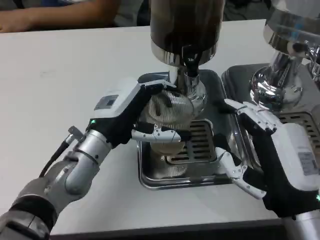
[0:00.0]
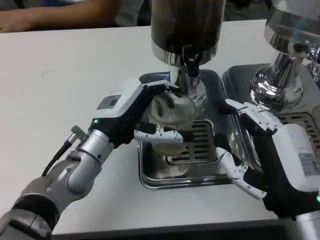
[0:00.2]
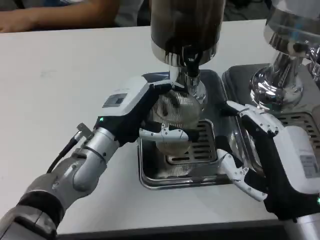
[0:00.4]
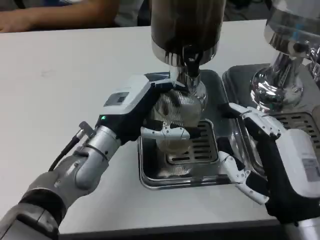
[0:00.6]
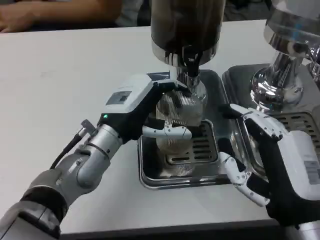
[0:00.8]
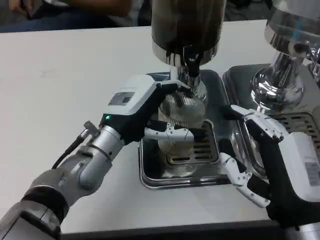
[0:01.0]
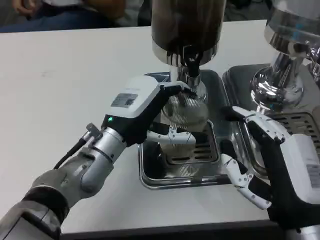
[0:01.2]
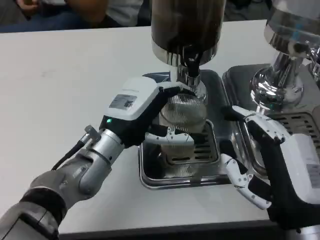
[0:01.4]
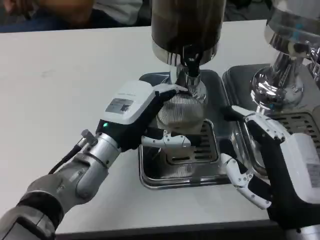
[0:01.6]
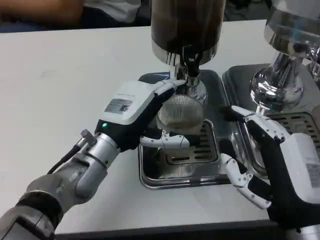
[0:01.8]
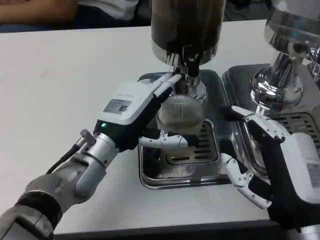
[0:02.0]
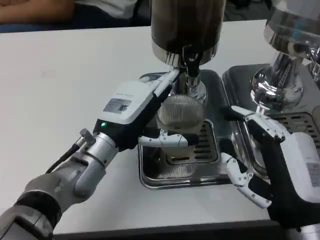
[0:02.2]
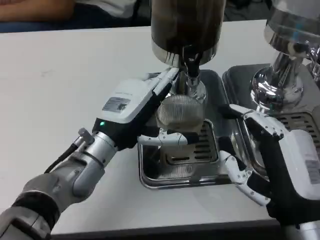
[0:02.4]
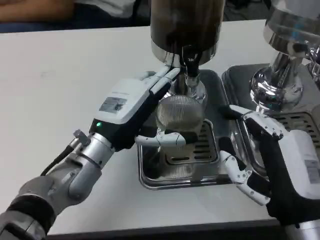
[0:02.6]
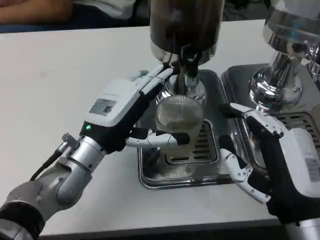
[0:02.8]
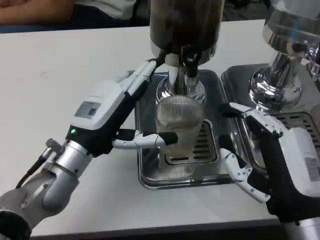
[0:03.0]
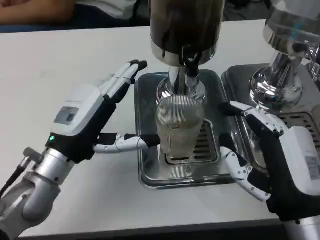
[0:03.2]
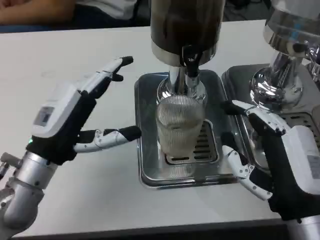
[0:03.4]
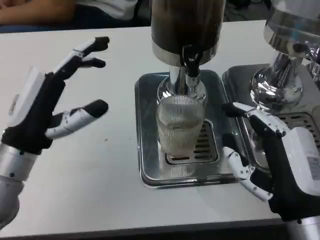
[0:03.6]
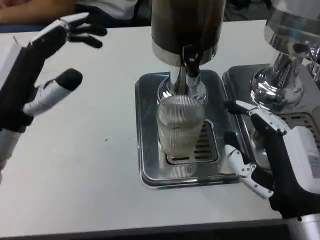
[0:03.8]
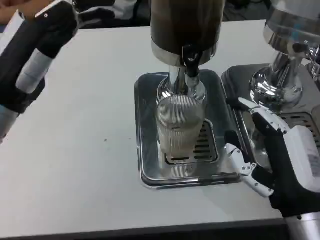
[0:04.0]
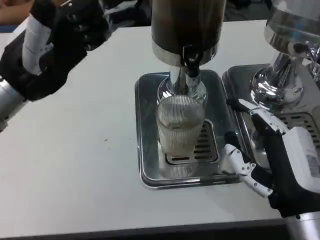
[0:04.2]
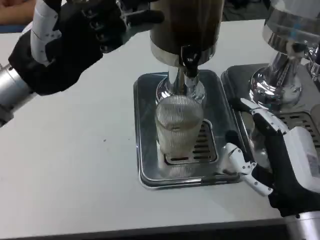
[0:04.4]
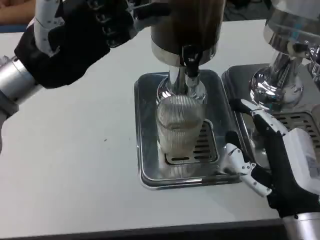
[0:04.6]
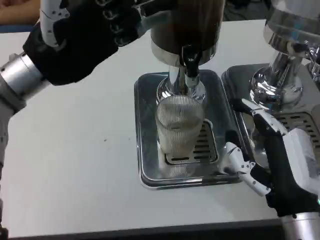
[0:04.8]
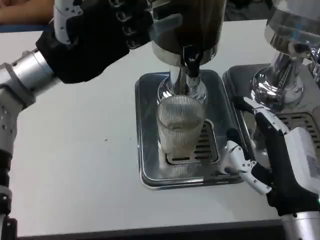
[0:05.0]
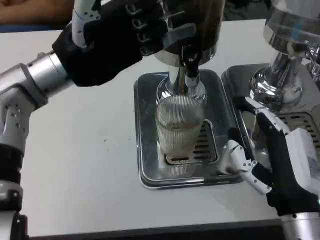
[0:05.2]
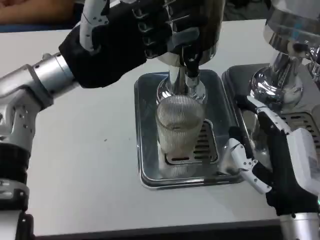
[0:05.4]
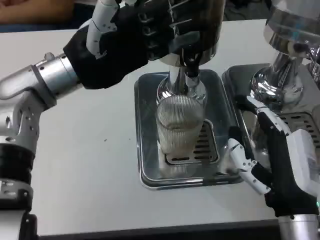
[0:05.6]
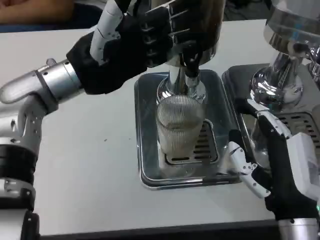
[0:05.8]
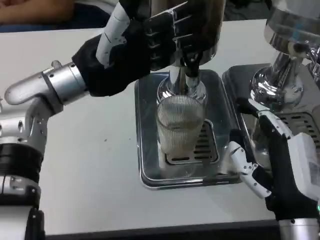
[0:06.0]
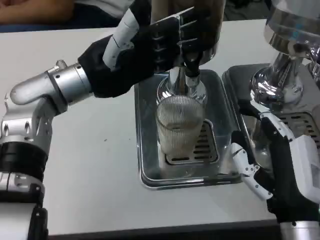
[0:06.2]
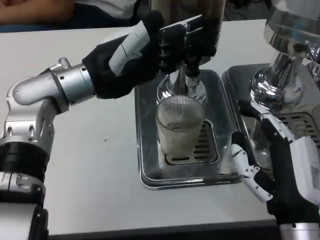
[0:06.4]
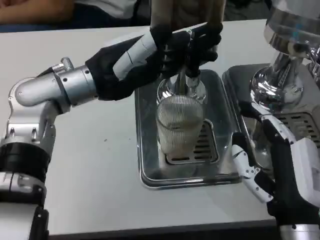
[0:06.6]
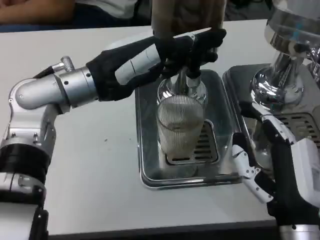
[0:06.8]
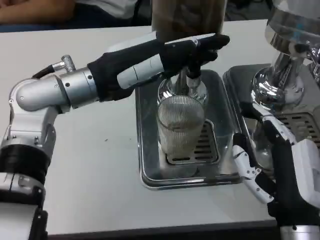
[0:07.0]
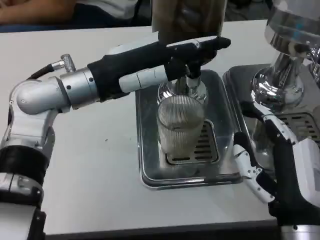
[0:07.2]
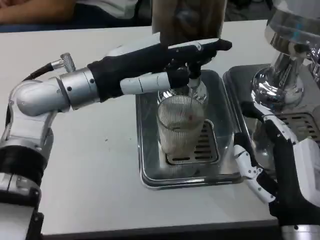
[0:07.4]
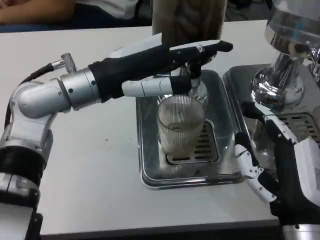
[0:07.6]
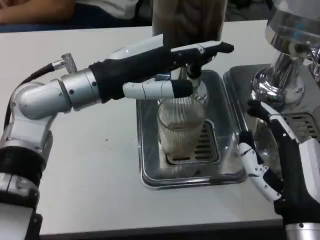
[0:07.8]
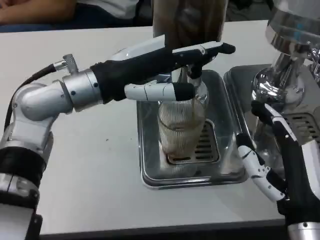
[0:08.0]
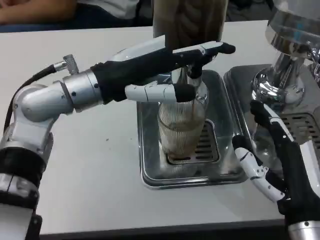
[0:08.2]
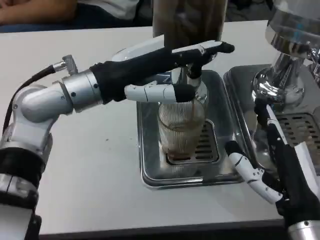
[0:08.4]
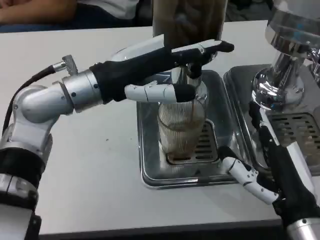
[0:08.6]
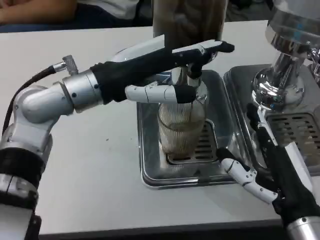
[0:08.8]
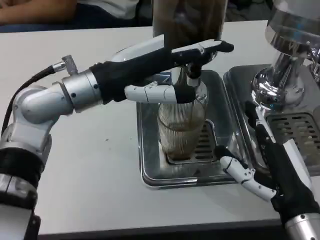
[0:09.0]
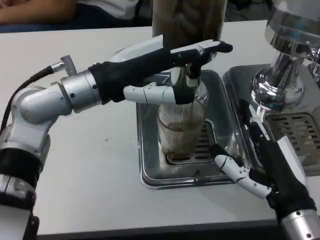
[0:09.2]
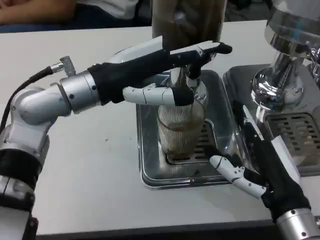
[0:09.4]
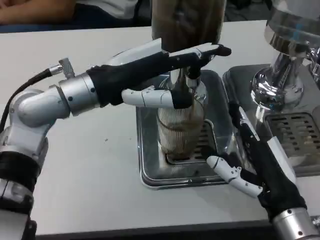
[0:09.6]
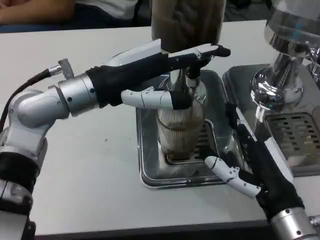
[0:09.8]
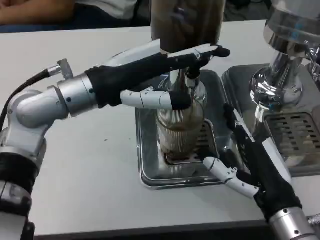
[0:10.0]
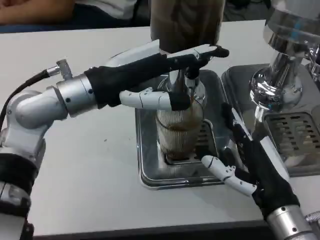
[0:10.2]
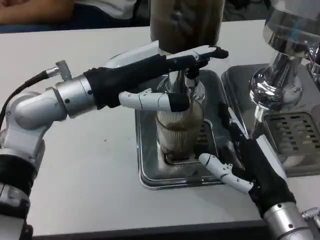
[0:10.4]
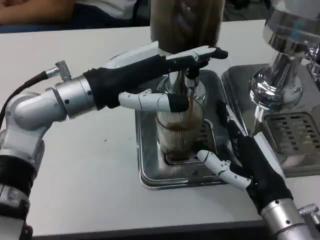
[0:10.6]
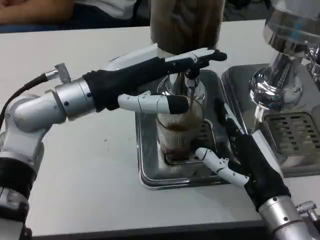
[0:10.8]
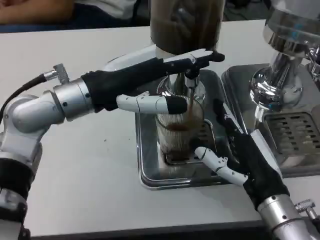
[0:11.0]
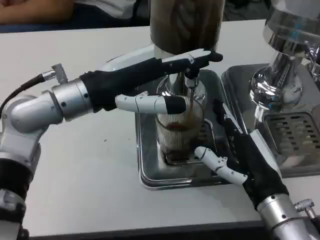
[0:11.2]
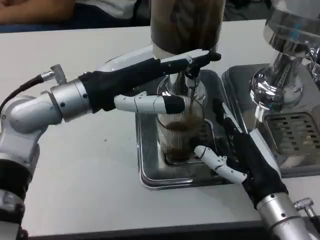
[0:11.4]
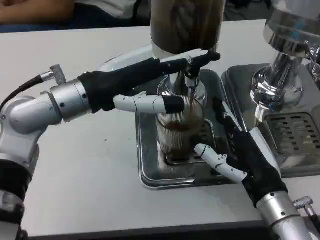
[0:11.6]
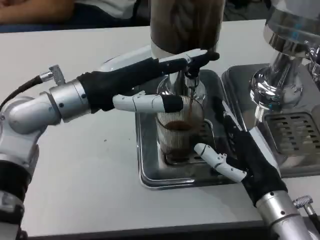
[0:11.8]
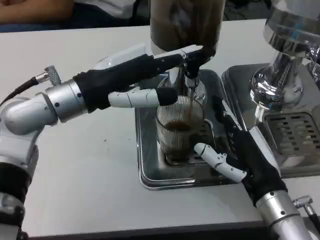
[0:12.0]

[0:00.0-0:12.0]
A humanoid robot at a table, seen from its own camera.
Task of the whole recording: Grasp the cup under the faucet to collect the drink, then remove the cup.
0:03.0 to 0:04.4: The left hand heads upward and to the left, covering about 15 cm.
0:04.4 to 0:06.0: The left hand moves to the right, some 5 cm.
0:10.4 to 0:12.0: The hands stay close to where they were, moving slightly.

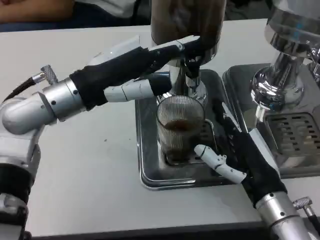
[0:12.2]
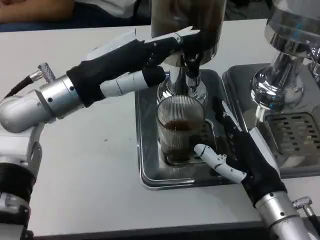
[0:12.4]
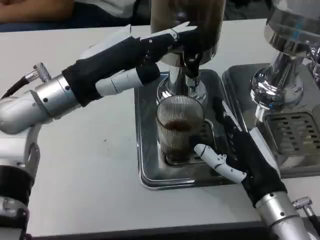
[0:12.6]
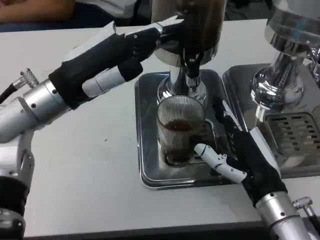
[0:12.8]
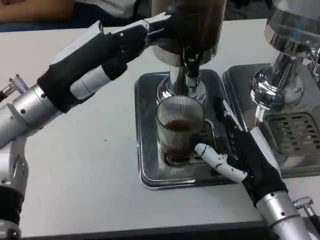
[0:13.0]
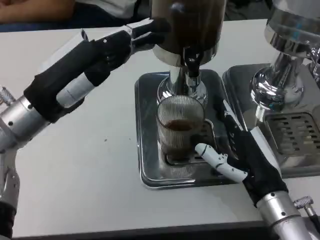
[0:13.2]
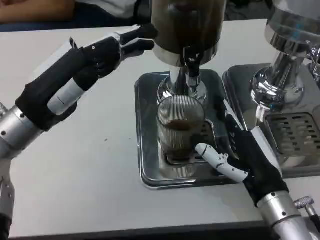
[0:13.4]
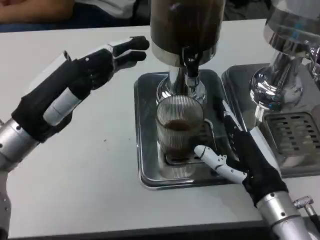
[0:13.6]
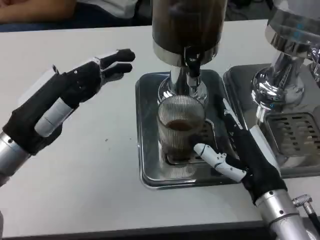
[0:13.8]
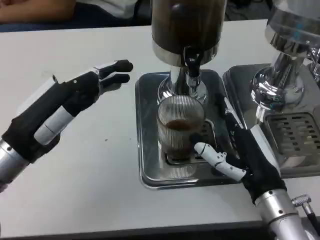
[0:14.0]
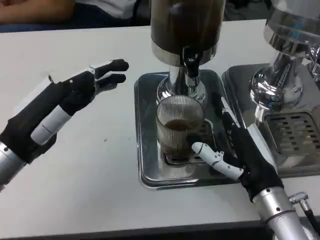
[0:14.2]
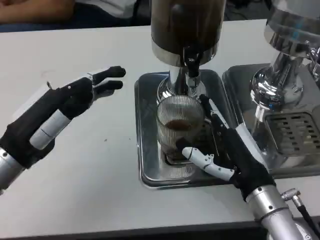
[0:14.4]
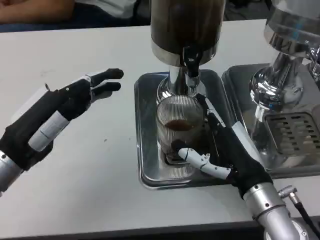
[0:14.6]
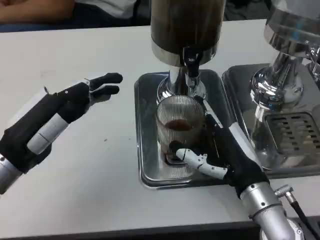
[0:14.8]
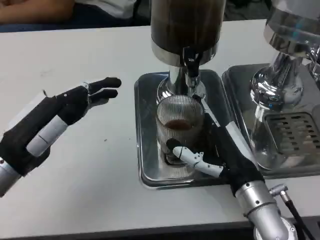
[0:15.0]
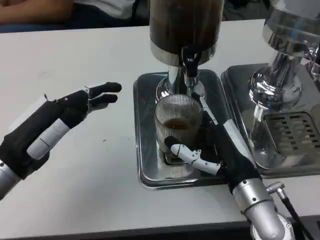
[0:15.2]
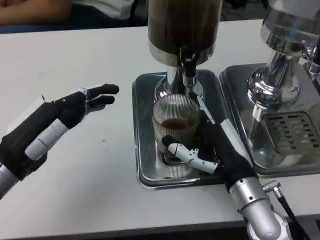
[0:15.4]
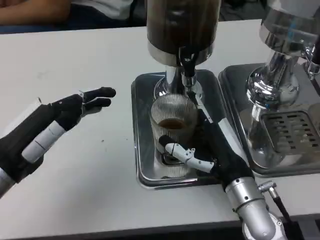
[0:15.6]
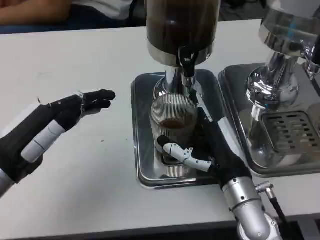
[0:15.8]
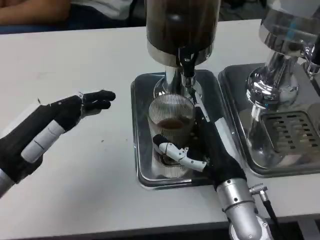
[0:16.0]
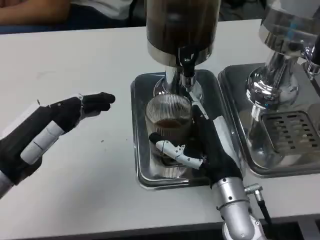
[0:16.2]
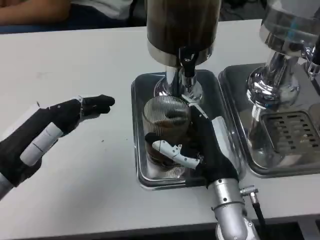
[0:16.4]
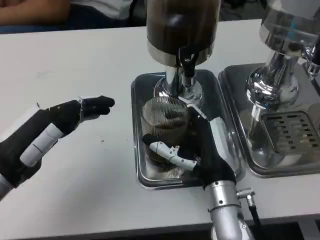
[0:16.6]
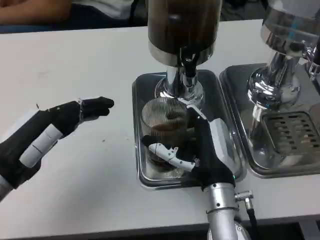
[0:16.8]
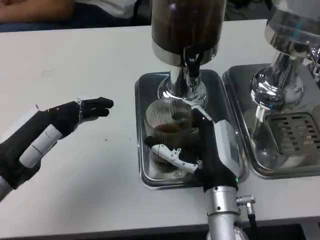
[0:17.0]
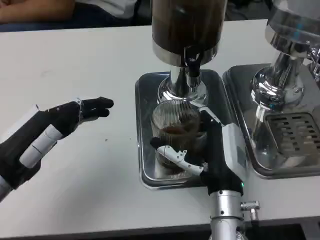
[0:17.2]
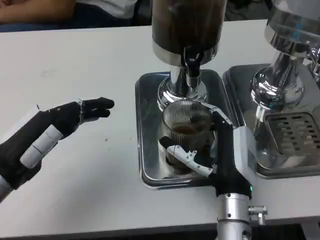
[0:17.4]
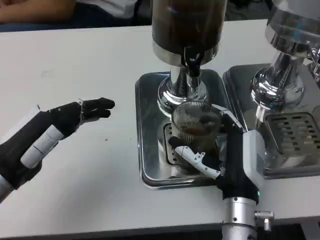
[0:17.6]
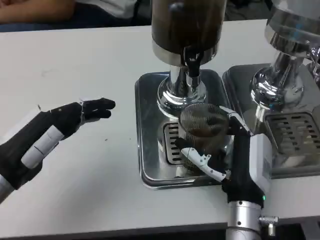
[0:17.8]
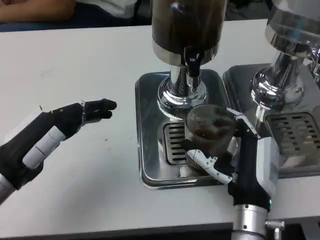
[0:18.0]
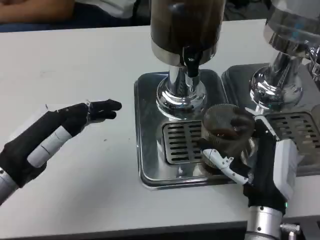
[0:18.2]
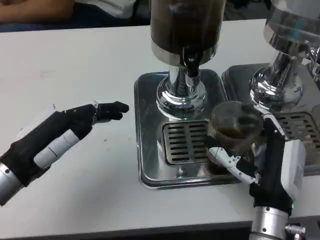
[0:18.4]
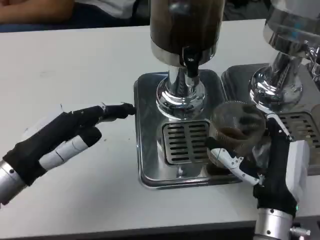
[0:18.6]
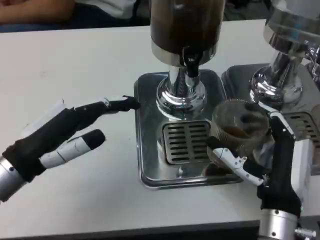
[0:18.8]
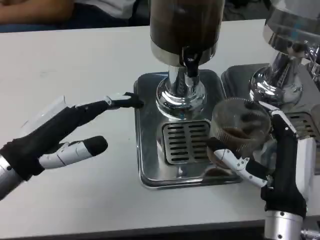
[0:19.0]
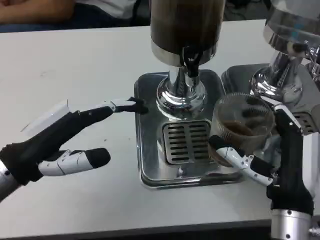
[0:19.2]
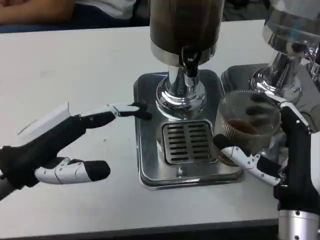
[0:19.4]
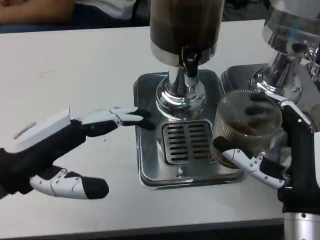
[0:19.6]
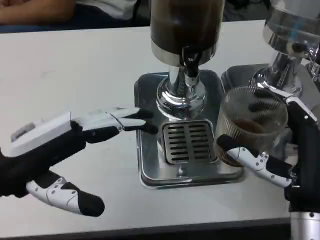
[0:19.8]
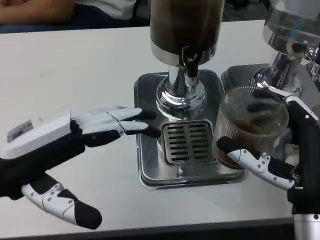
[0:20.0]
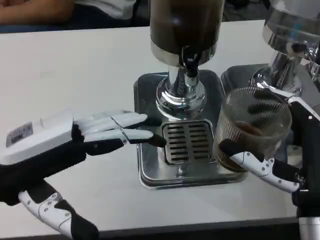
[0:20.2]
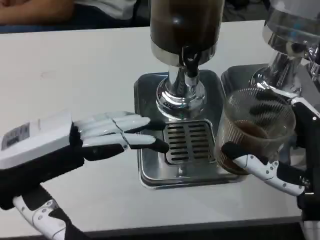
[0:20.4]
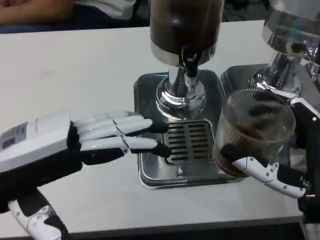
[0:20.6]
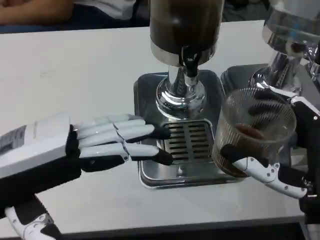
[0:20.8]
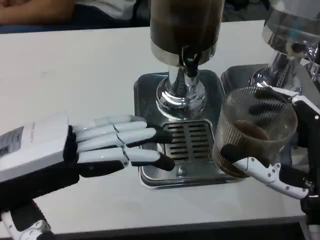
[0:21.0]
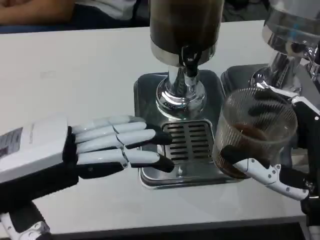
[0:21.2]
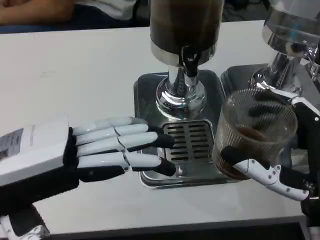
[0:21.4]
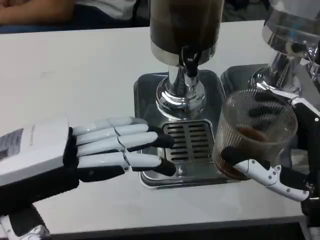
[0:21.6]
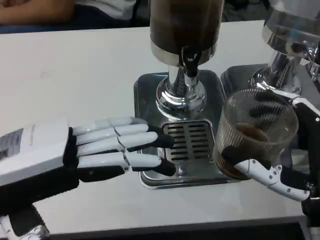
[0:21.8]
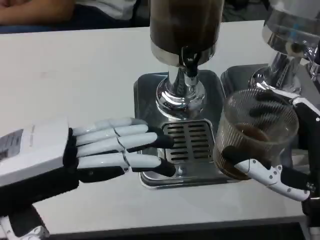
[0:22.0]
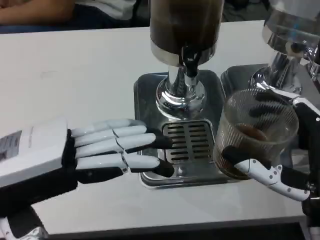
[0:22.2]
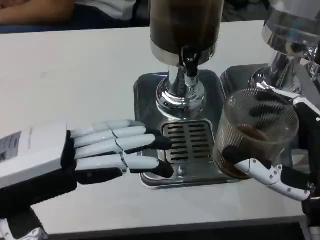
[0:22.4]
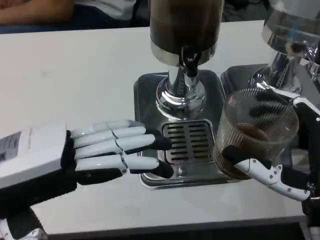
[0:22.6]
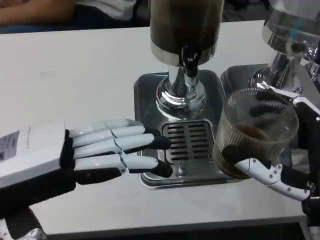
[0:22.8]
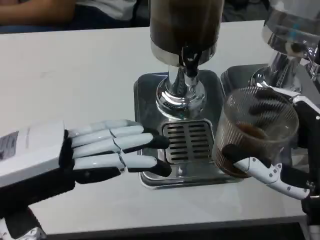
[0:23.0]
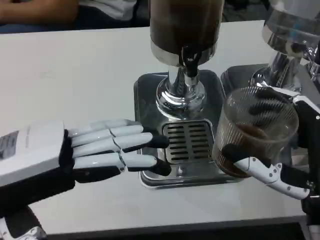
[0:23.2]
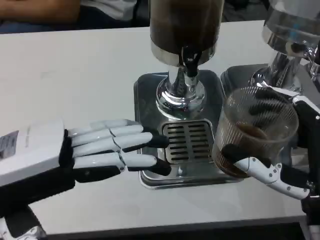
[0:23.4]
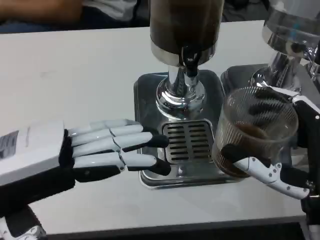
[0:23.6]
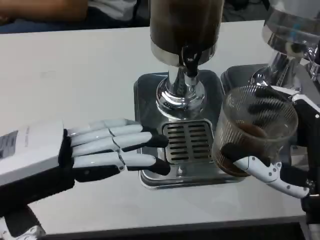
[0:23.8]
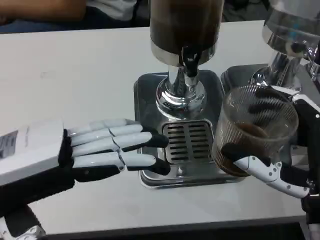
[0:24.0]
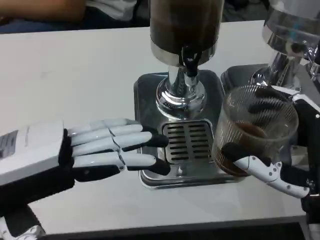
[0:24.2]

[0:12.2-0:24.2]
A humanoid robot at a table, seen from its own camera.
Task of the whole recording: Grasp the cup under the faucet to collect the drink, then remove the cup.
0:12.2 to 0:13.8: The left hand travels backward, to the left and downward by roughly 10 cm.
0:15.2 to 0:16.6: The right hand shifts roughly 5 cm to the left.
0:16.6 to 0:18.2: The right hand shifts by approximately 5 cm.
0:18.2 to 0:19.8: Both hands travel together upward, about 5 cm.
0:21.2 to 0:24.2: Neither hand changes place.
